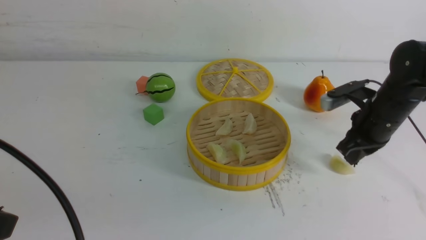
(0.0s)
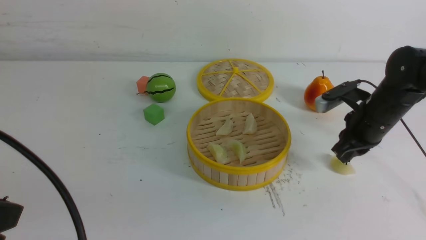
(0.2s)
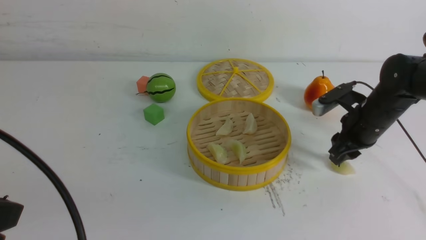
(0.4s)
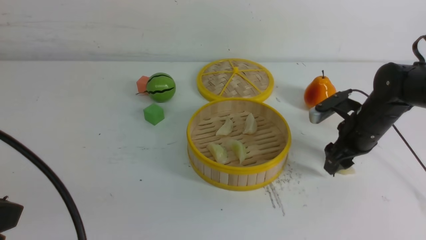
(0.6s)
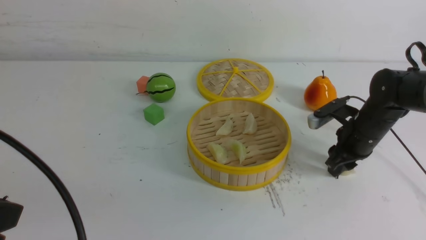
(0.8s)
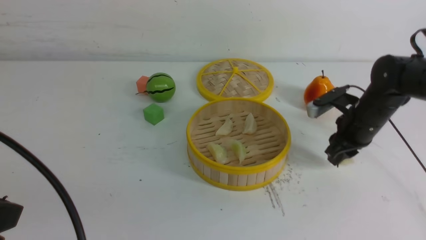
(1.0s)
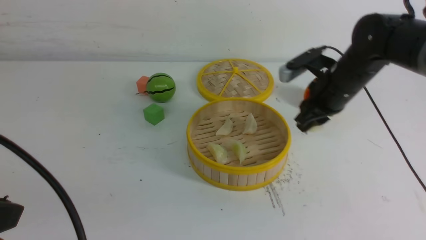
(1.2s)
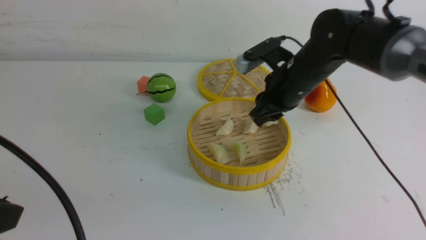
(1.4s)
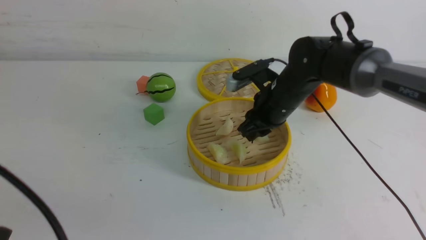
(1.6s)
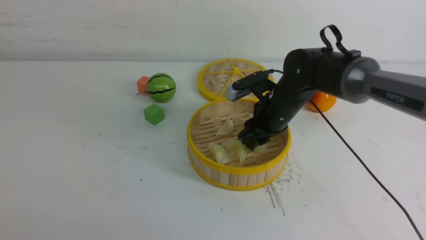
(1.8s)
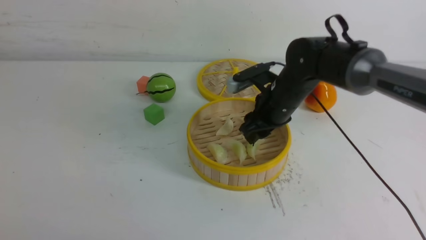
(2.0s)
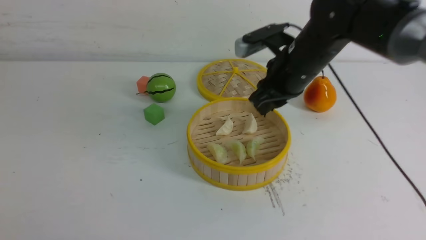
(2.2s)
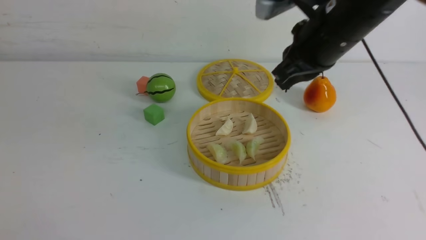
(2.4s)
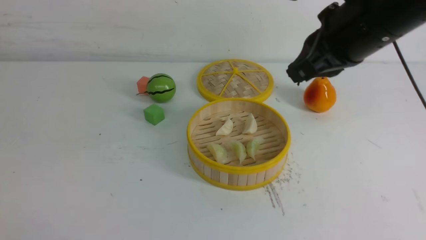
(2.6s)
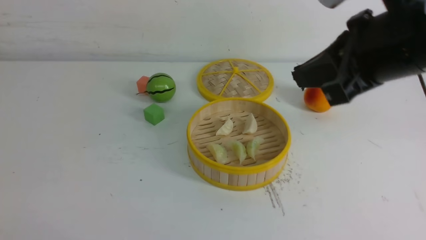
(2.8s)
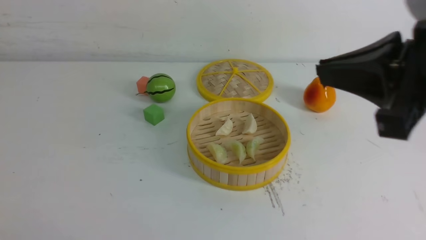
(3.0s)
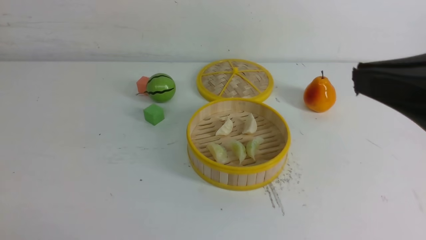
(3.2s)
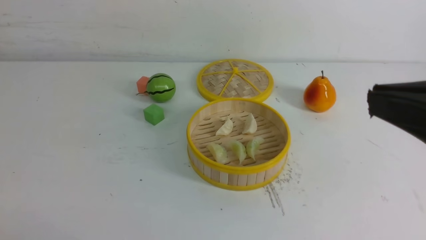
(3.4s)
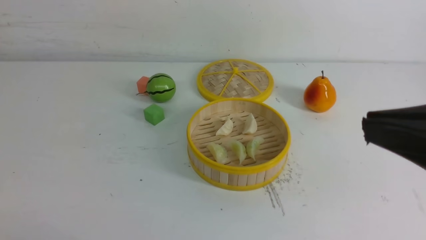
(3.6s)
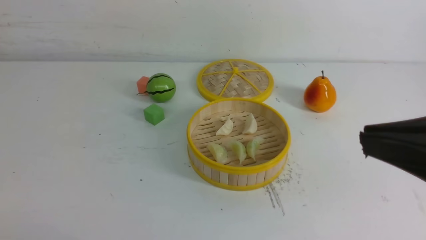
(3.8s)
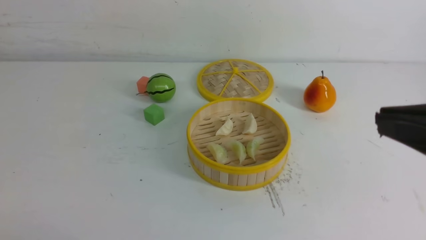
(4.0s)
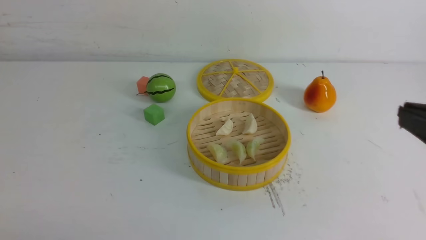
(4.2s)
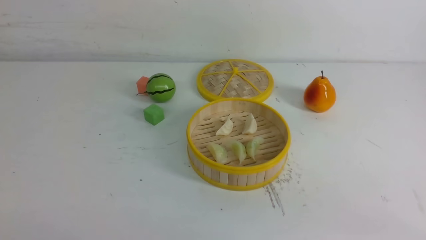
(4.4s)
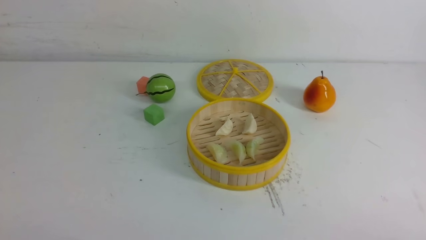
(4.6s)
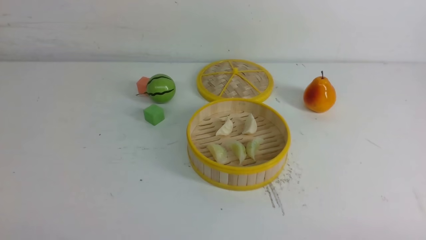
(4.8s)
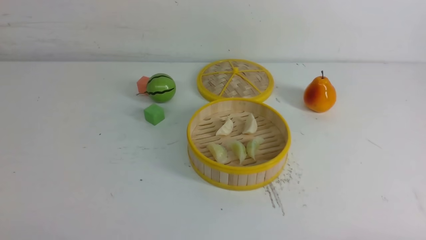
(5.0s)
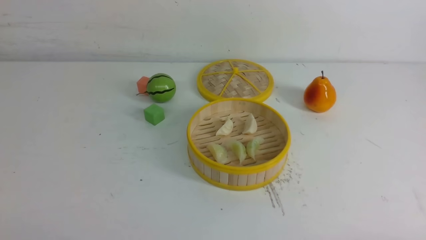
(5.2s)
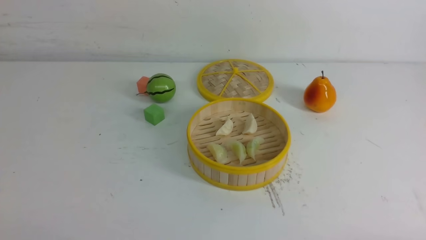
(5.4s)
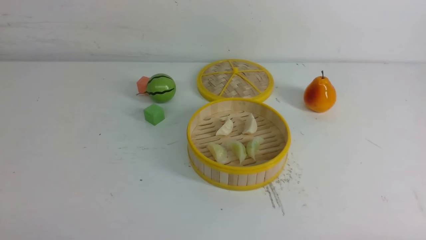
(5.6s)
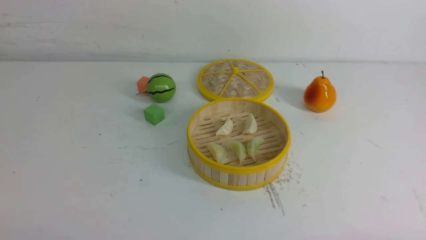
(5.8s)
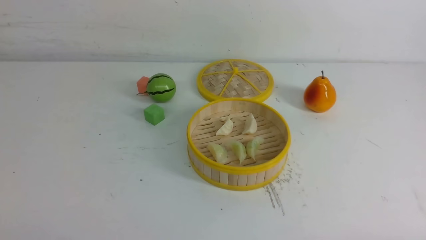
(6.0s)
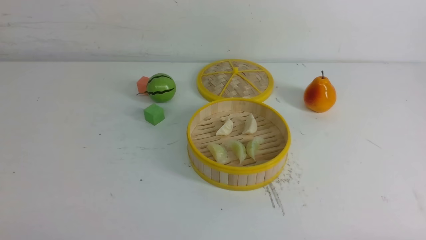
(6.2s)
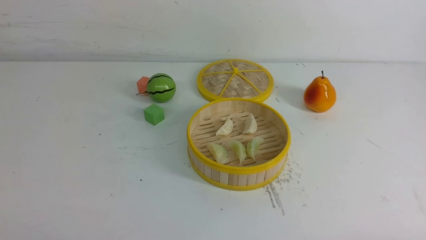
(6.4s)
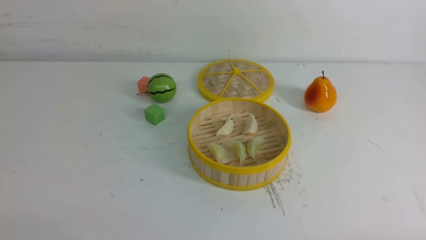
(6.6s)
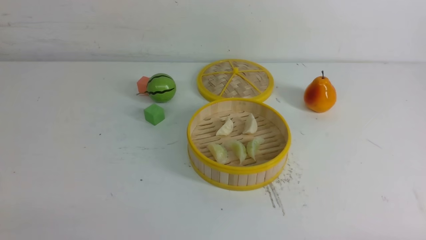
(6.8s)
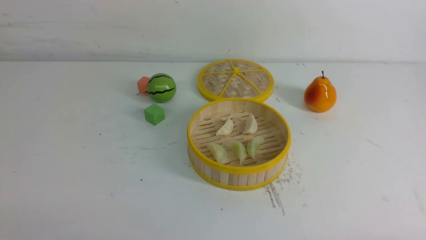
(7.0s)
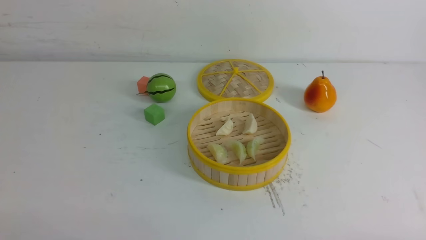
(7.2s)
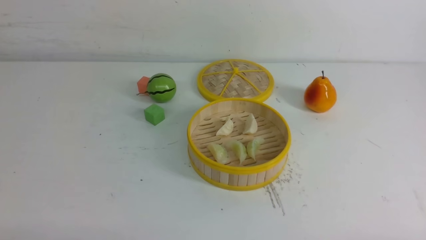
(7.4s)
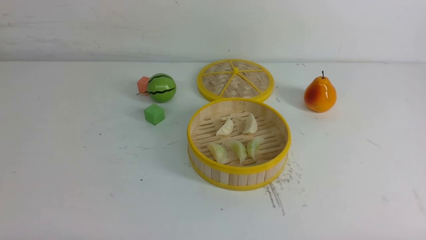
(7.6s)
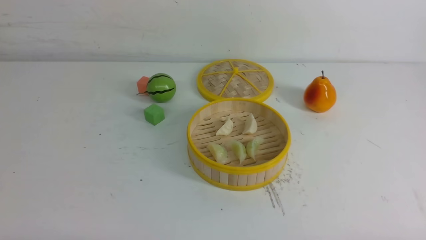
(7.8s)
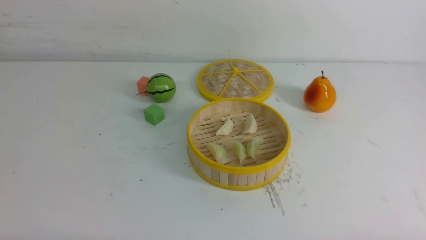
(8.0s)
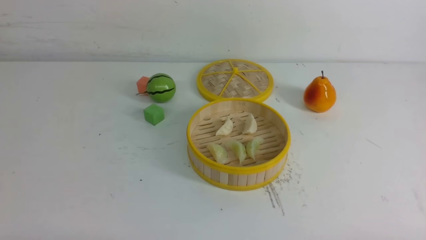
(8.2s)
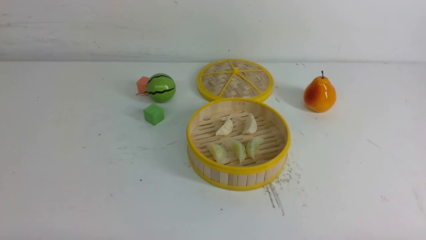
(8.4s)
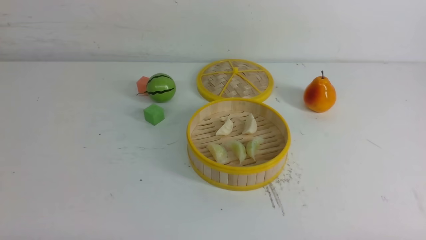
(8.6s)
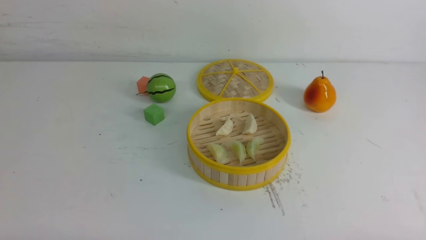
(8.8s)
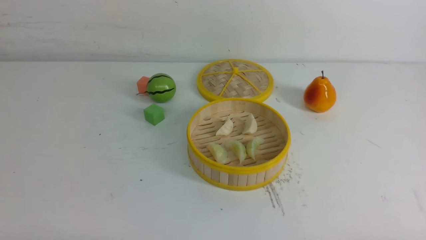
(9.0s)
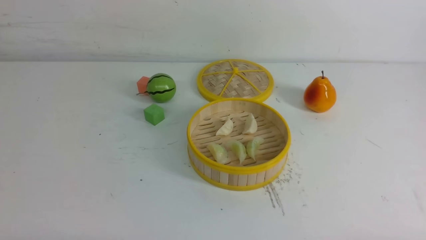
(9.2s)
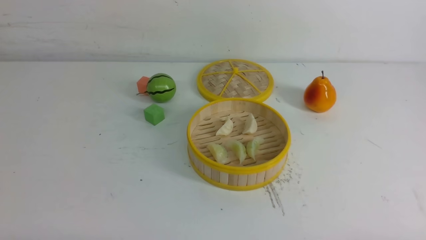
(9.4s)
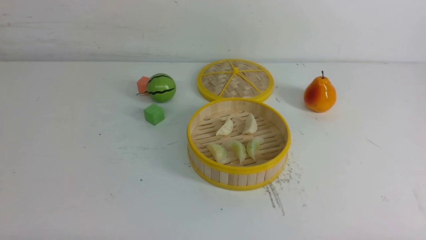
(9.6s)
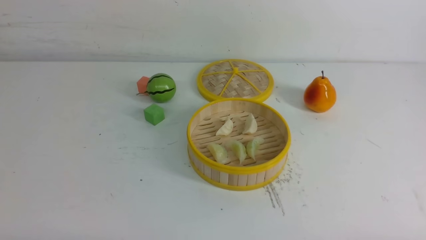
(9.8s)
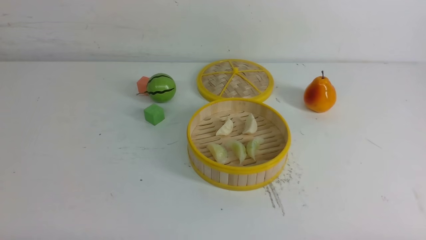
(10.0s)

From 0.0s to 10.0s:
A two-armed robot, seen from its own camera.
Task of the whole recording: put the dumplings into the steamer on the white table.
Step, from 1.0s to 2.0s: use the right arm to put the dumpling into the steamer.
From 0.0s to 1.4s: The right gripper heads to the left, covering some 10 cm, and opens.
From 1.4s to 2.8s: The right gripper heads backward and upward, covering approximately 25 cm, and closes. The left gripper goes some 15 cm backward, downward and to the left.
From 2.8s to 4.2s: The right gripper goes approximately 15 cm backward, to the right and downward.
From 4.2s to 5.8s: The right gripper moves downward, about 15 cm.
From 8.6s to 10.0s: The two grippers keep their place.
